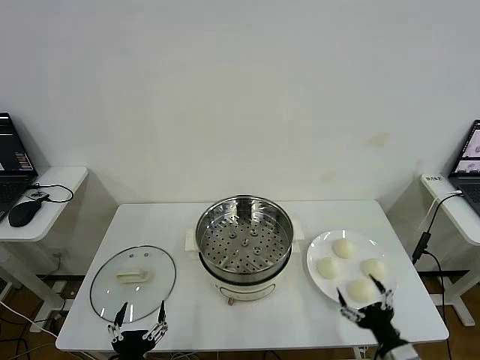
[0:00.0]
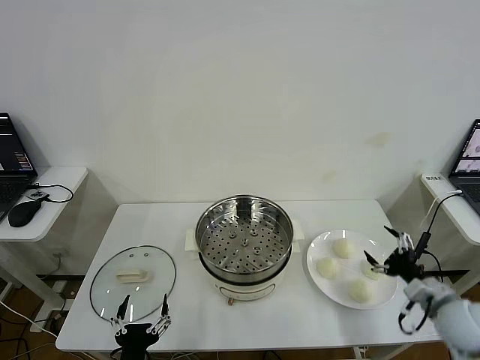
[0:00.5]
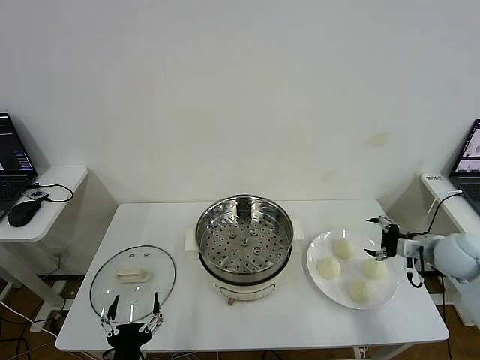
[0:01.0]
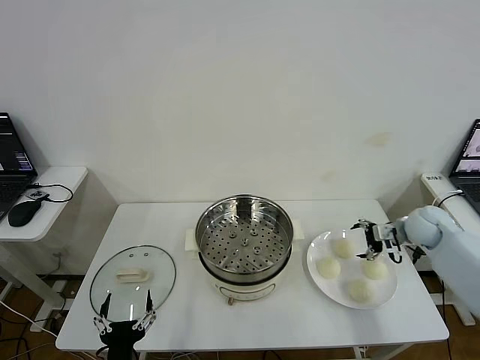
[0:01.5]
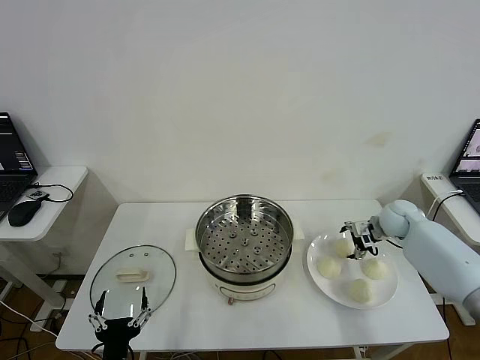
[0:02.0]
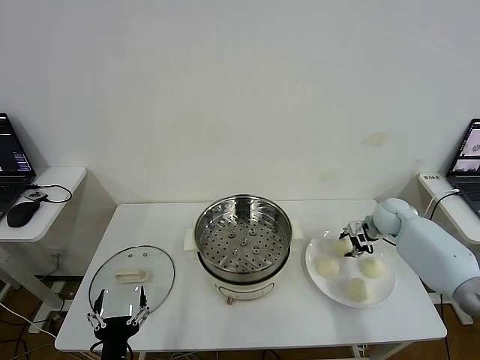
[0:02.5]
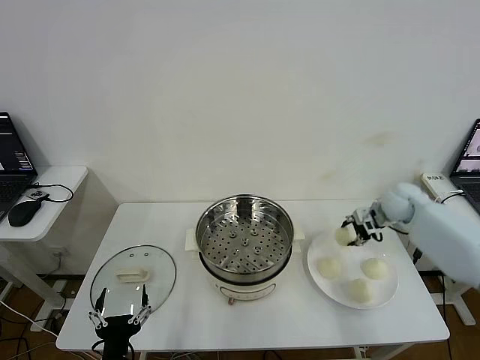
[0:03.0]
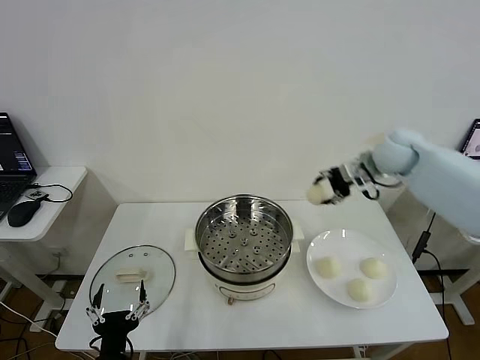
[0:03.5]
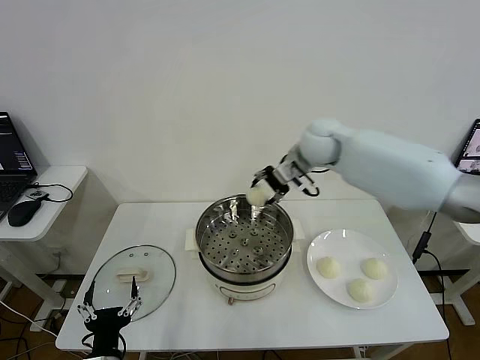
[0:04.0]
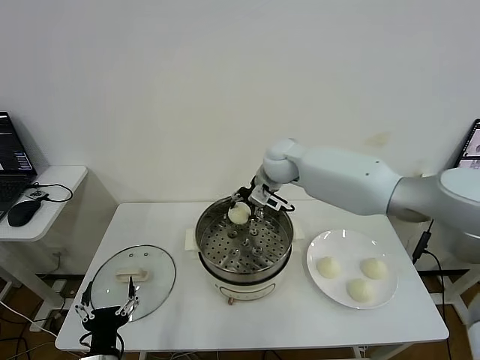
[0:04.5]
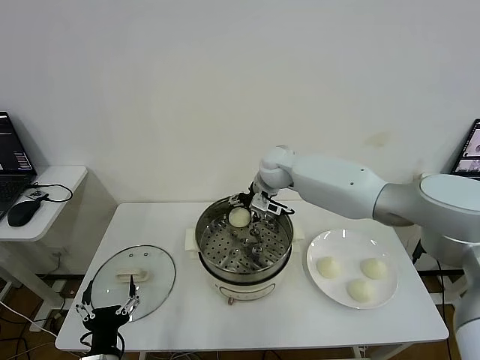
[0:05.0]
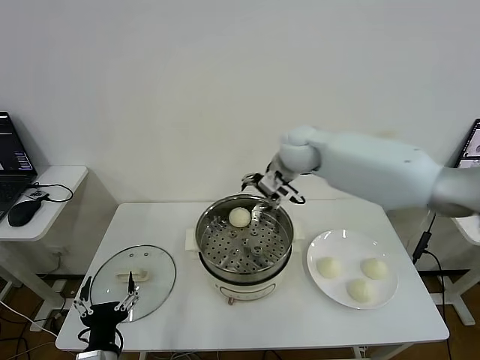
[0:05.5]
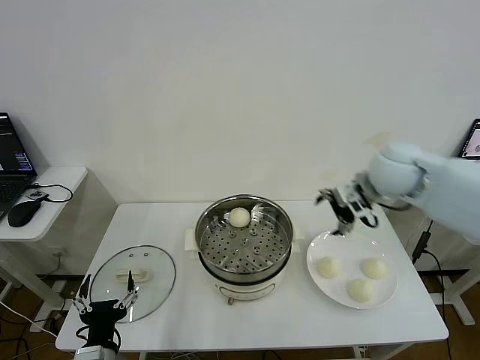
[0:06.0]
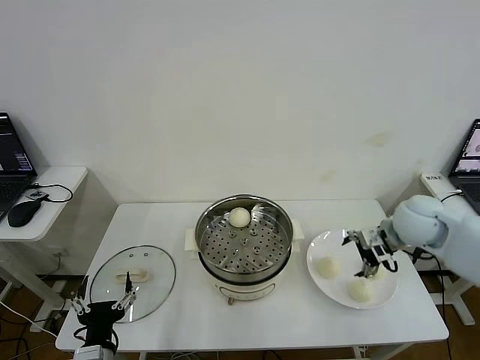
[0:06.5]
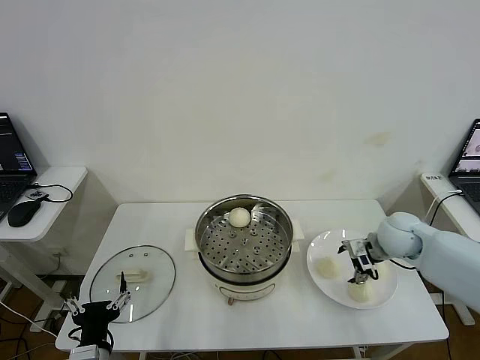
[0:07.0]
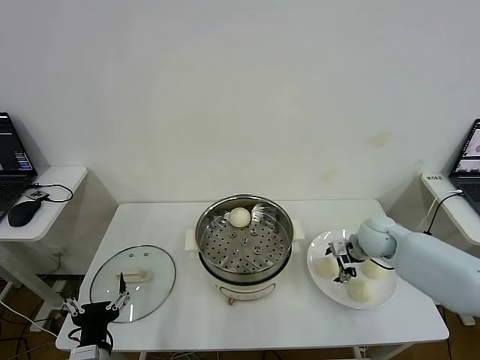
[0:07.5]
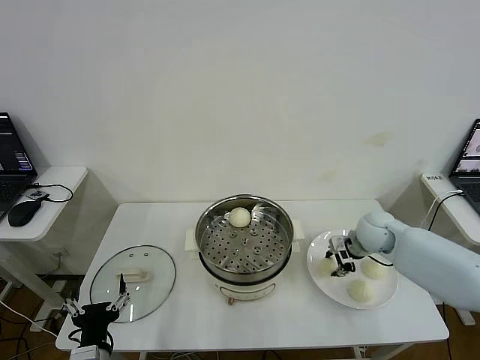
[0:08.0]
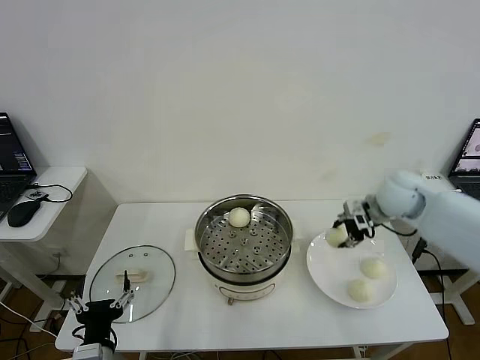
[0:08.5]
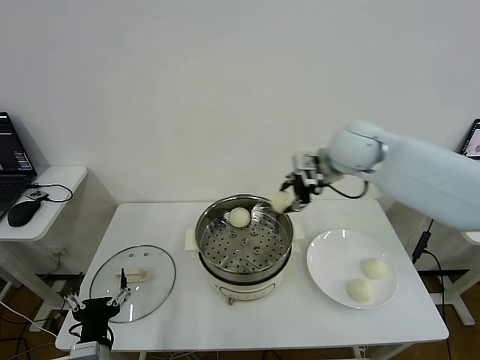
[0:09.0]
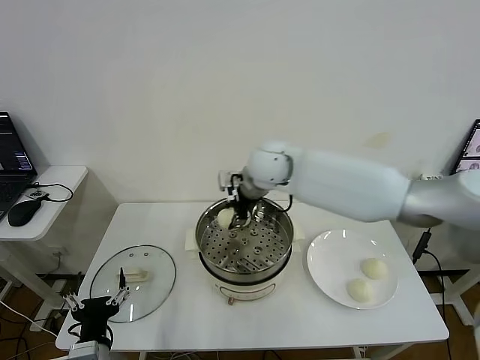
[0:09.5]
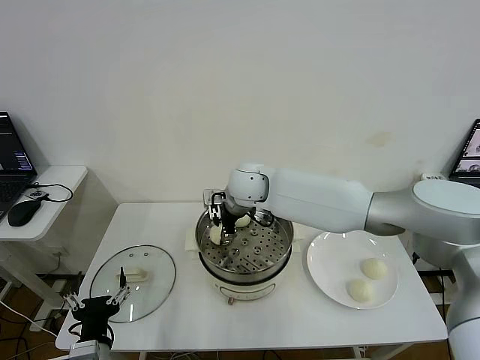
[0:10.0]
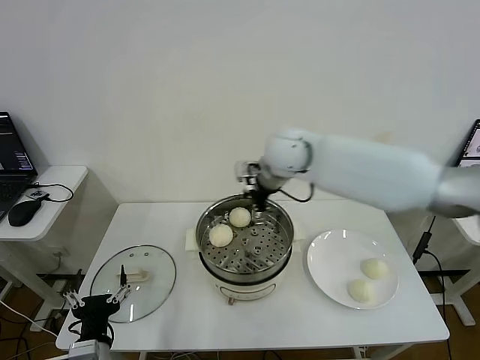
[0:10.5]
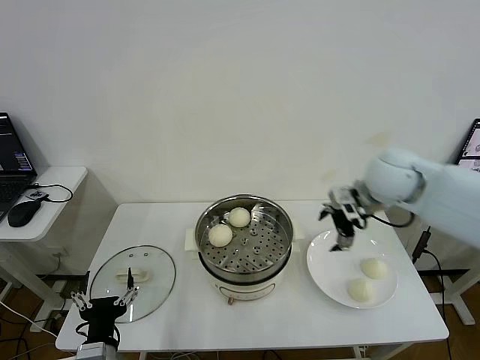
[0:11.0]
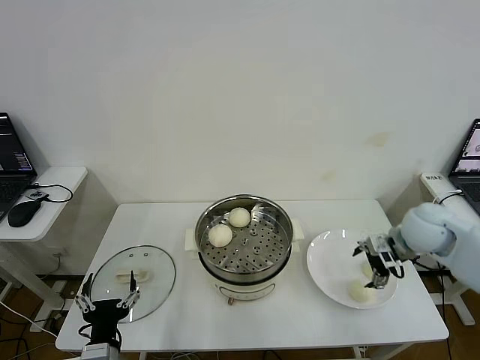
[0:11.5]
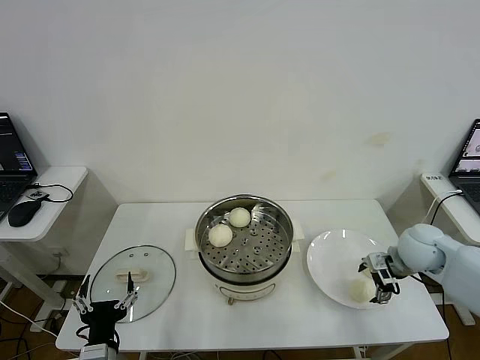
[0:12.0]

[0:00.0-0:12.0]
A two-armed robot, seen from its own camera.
Step, 0:00.0 to 0:02.5: Grasp the baozi in the plate with right gripper.
Step, 0:03.0 to 0:05.0: Place the baozi on the steamer with right gripper.
Step, 0:05.5 to 0:07.5: Grasp the baozi in the plate with right gripper.
Step, 0:08.0 to 0:10.0: Place the baozi on the steamer with right gripper.
0:02.0 to 0:04.0: The right gripper moves to the left and upward, approximately 35 cm, and closes.
0:04.0 to 0:06.0: The right gripper is displaced to the right and backward by approximately 20 cm, and opens.
0:06.0 to 0:08.0: The right gripper moves downward, some 15 cm, and closes up.
0:08.0 to 0:10.0: The right gripper heads to the left, covering approximately 30 cm, and opens its fingers.
0:10.0 to 0:12.0: The right gripper travels to the right by about 40 cm, and opens.

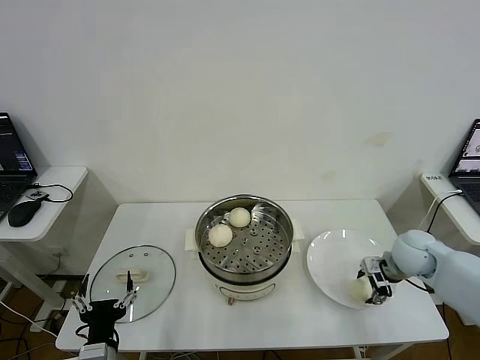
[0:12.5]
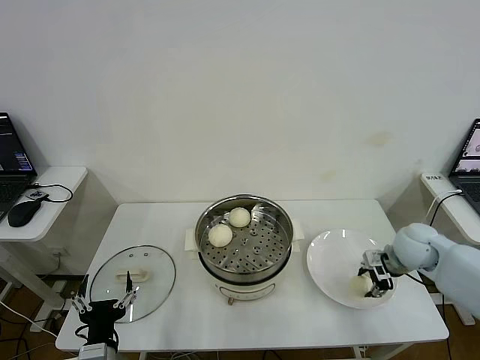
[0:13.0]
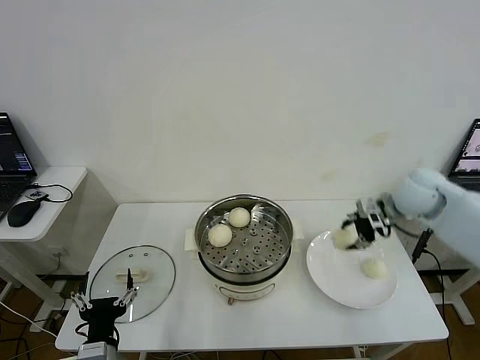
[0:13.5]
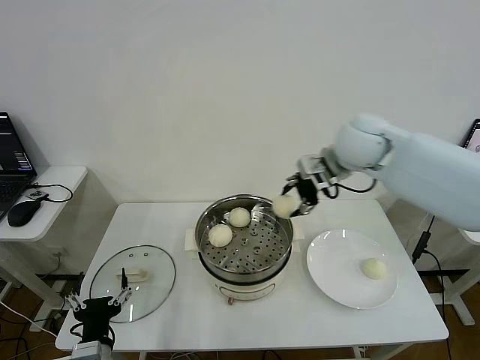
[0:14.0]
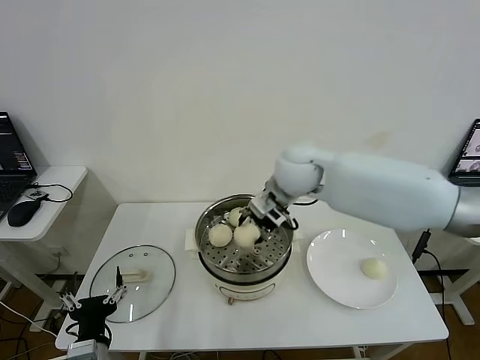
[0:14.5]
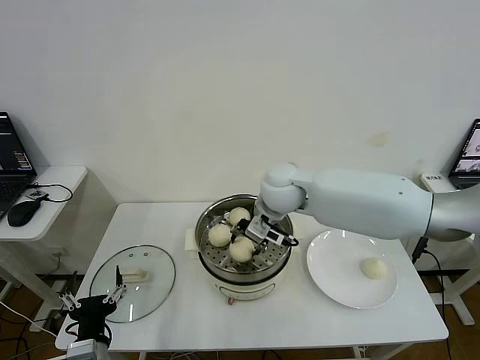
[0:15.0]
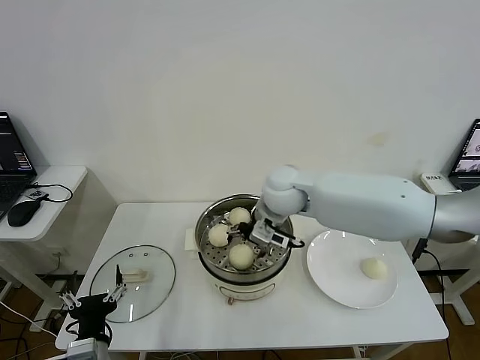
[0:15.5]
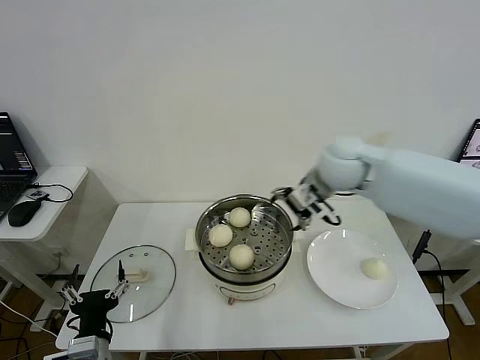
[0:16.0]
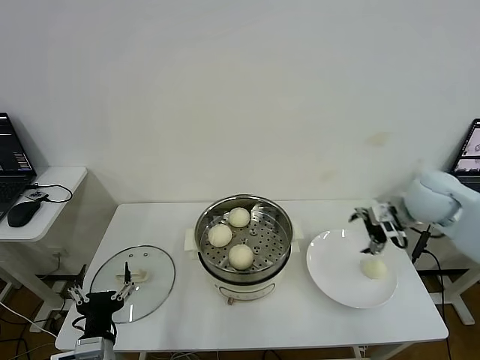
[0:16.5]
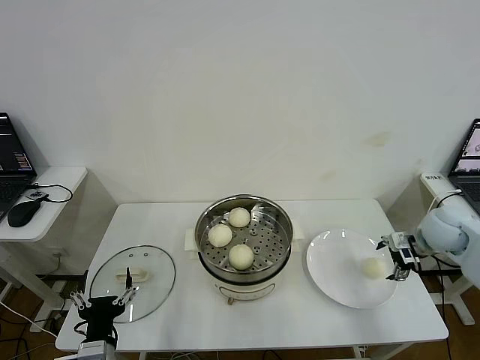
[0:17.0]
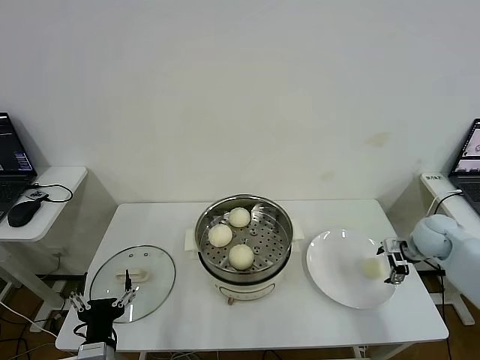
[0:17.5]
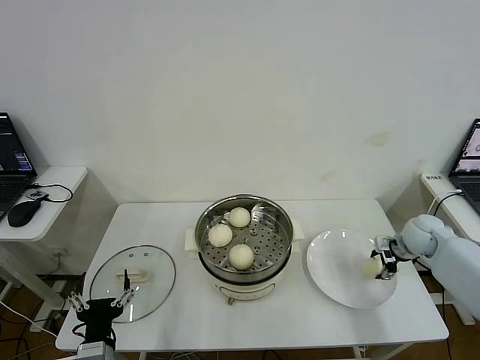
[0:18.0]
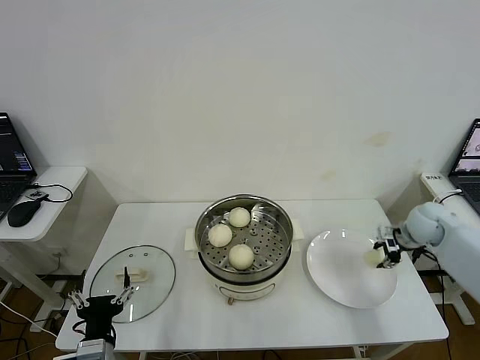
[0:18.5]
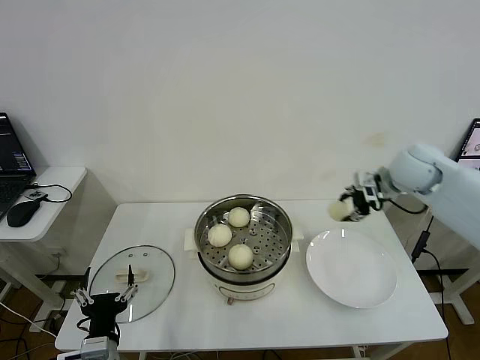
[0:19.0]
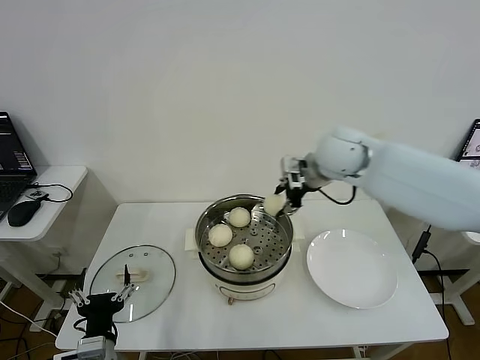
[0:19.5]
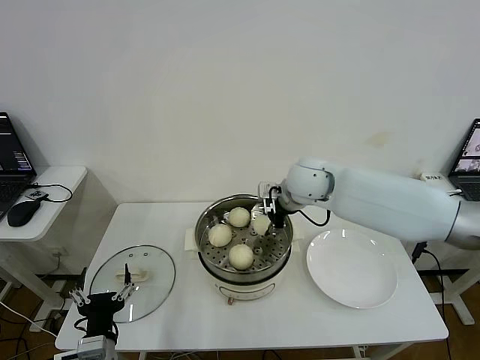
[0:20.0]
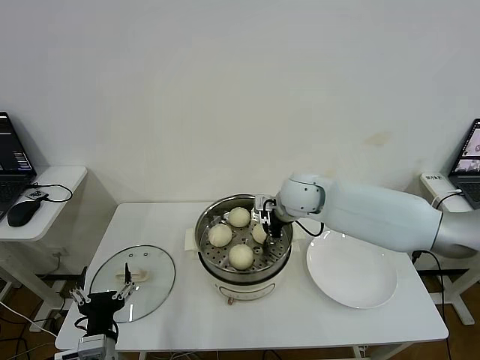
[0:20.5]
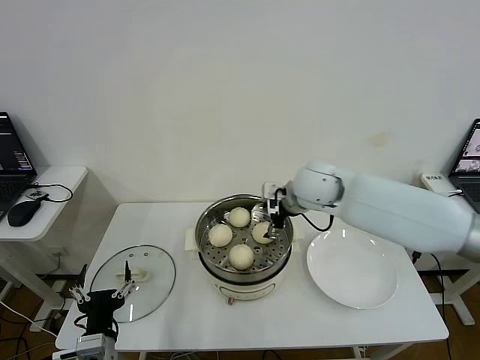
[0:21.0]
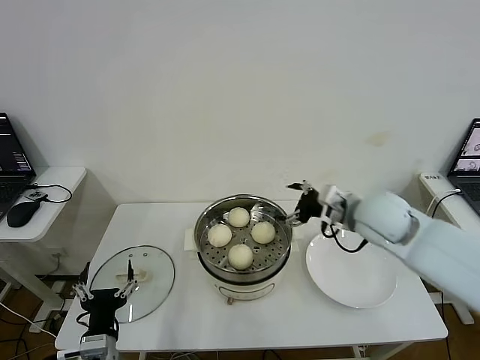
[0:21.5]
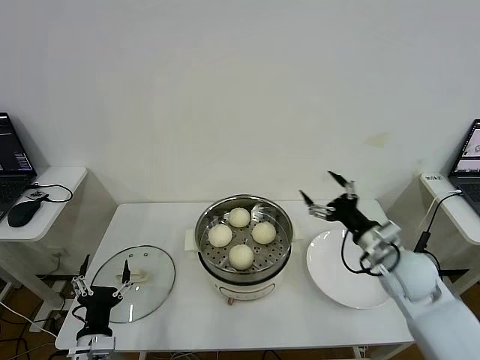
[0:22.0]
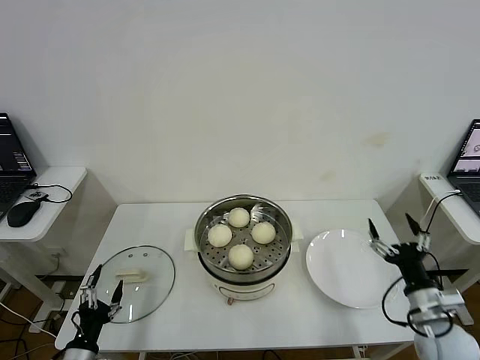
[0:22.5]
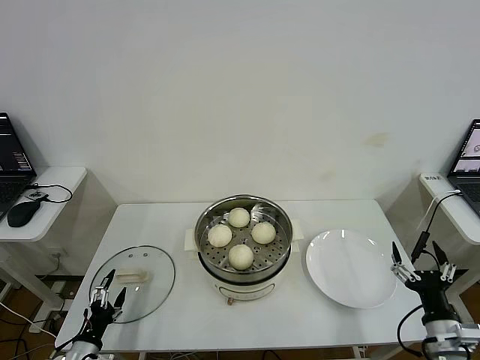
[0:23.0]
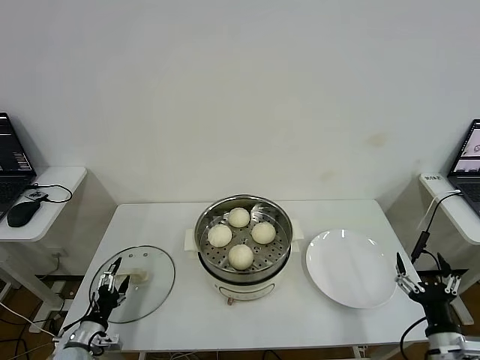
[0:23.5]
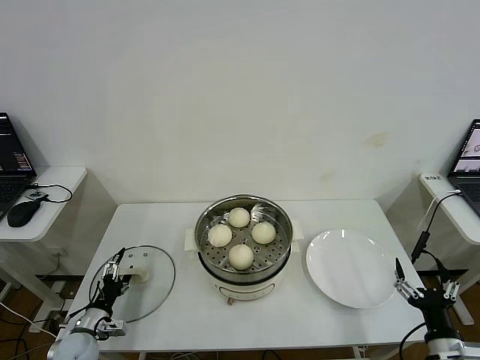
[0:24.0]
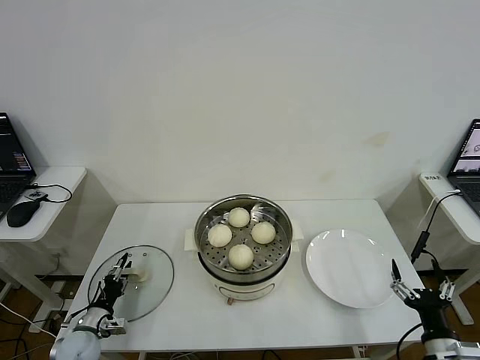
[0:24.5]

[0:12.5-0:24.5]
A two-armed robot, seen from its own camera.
Step, 0:13.0 to 0:15.0: Place the baozi on the steamer with right gripper.
Step, 0:15.5 to 0:18.0: Grasp the baozi in the plate with right gripper.
Step, 0:18.5 to 0:20.5: Place the baozi on the steamer with right gripper.
0:12.5 to 0:14.5: The right gripper travels to the left and upward by approximately 35 cm.
0:14.5 to 0:16.5: The right gripper moves to the right, about 30 cm, and opens its fingers.
0:16.5 to 0:18.5: The right gripper goes about 10 cm downward and to the right, and closes up.
0:18.5 to 0:20.5: The right gripper heads to the left, covering some 30 cm.
0:20.5 to 0:22.5: The left gripper shifts some 15 cm to the left and downward; the right gripper heads backward, to the right and downward, covering about 40 cm, and opens up.
0:22.5 to 0:24.5: The right gripper moves backward, approximately 10 cm; the left gripper is displaced forward and downward by some 15 cm, and closes up.

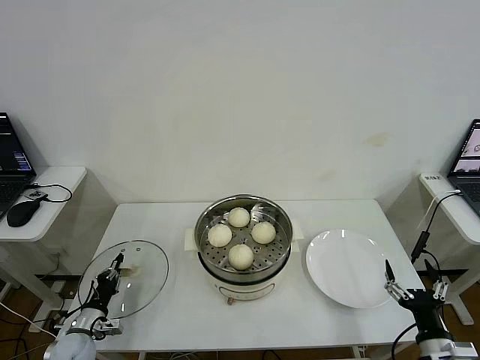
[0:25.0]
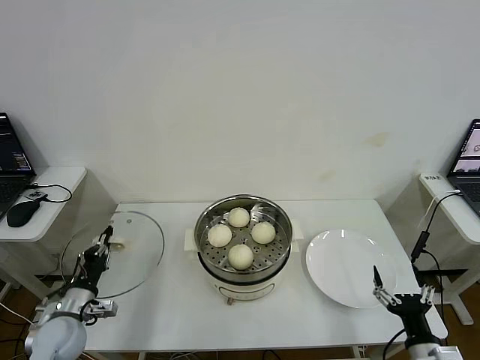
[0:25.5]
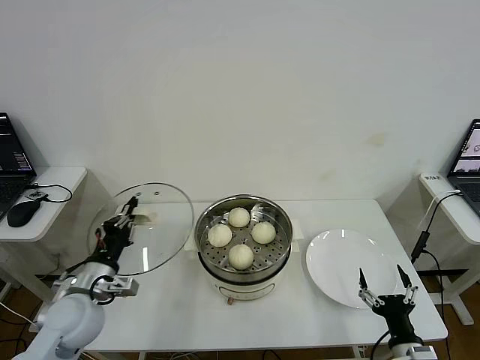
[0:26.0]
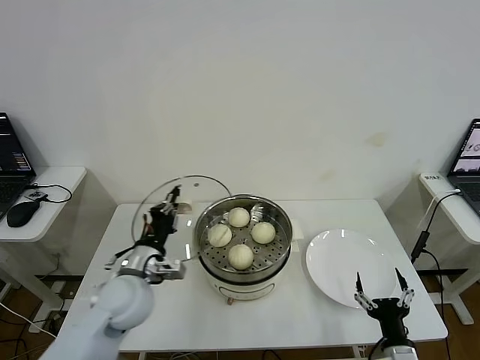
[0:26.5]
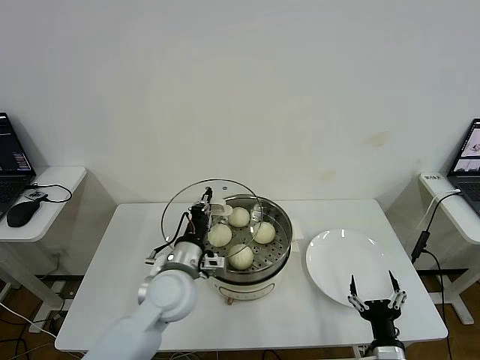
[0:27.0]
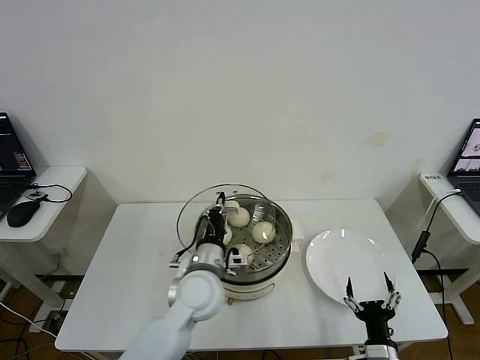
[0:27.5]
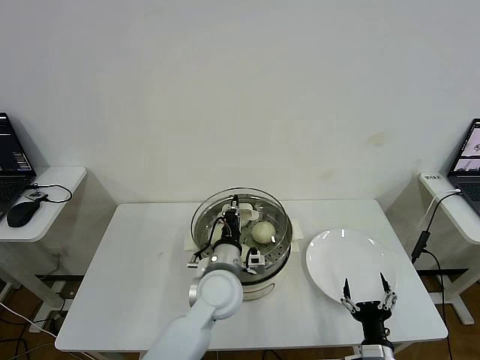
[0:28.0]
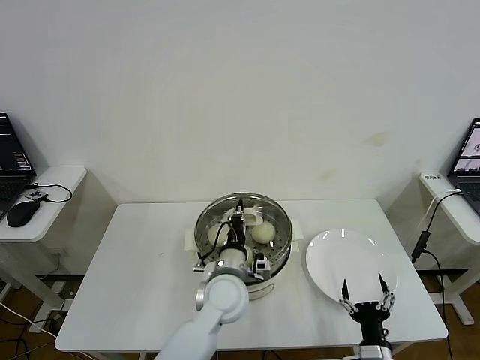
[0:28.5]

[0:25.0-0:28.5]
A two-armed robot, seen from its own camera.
0:25.0 to 0:27.0: The right gripper travels to the left by roughly 10 cm, while the left gripper heads to the right and upward, covering approximately 35 cm.
0:27.0 to 0:28.5: The left gripper shifts about 10 cm to the right.
